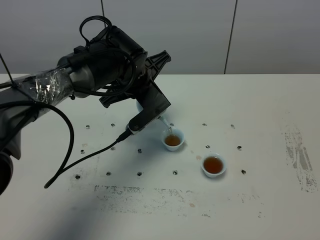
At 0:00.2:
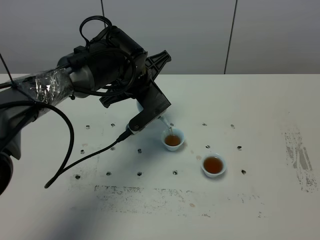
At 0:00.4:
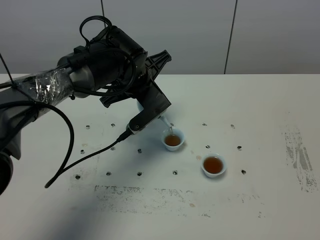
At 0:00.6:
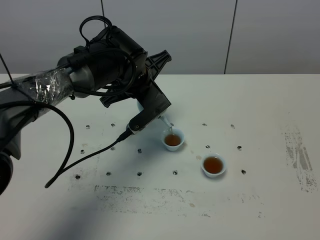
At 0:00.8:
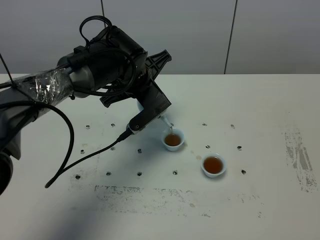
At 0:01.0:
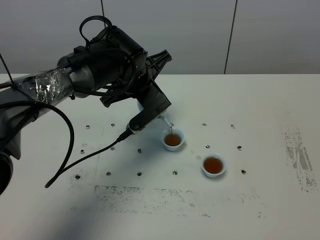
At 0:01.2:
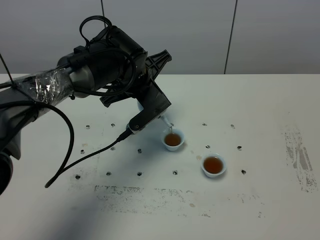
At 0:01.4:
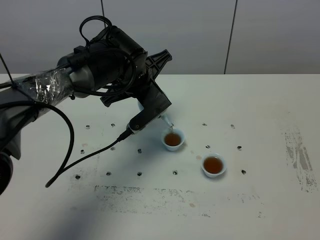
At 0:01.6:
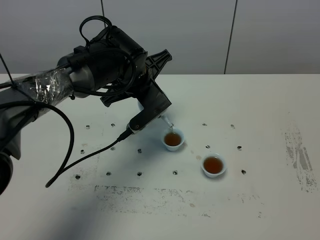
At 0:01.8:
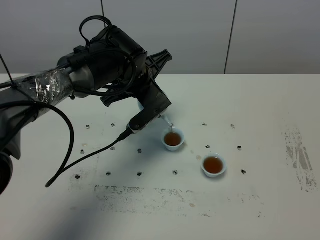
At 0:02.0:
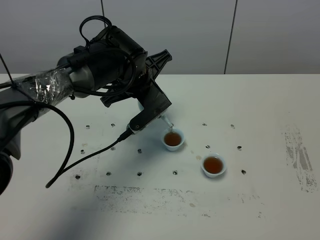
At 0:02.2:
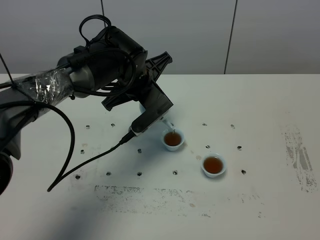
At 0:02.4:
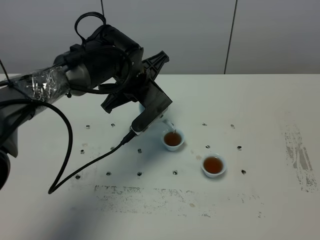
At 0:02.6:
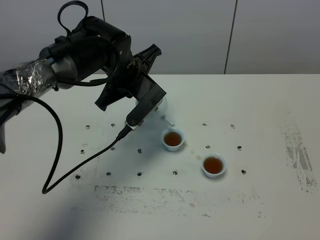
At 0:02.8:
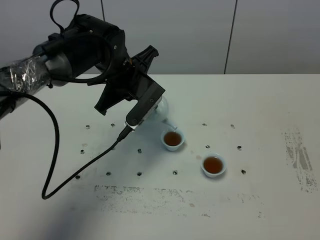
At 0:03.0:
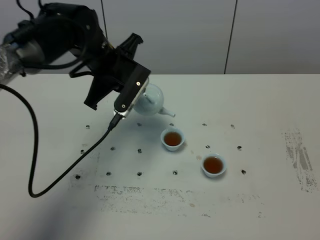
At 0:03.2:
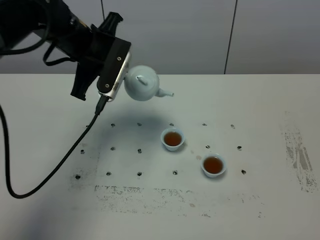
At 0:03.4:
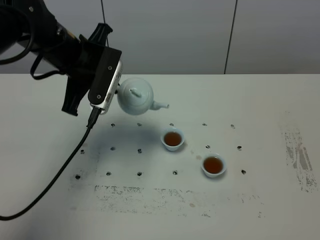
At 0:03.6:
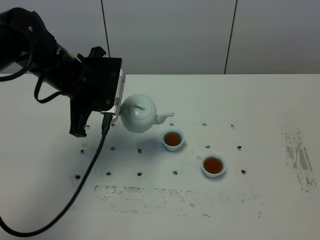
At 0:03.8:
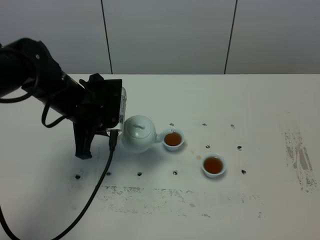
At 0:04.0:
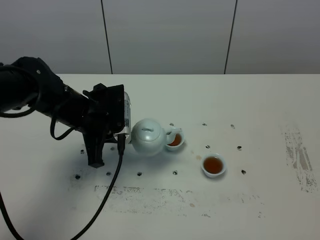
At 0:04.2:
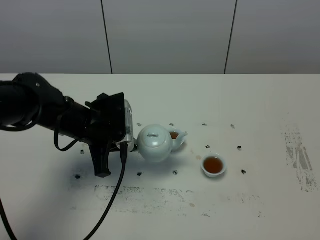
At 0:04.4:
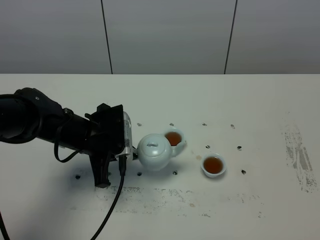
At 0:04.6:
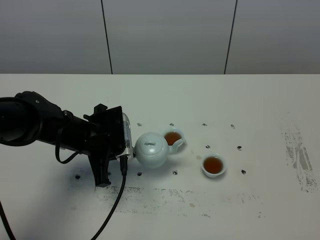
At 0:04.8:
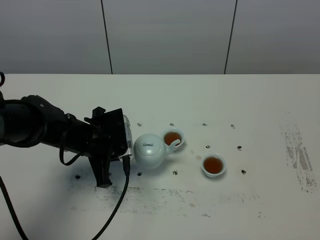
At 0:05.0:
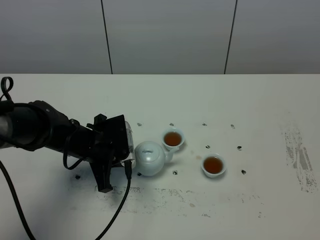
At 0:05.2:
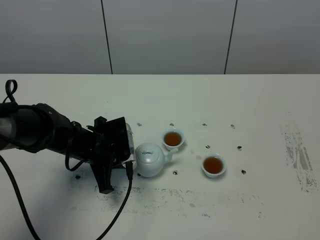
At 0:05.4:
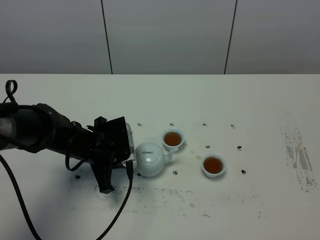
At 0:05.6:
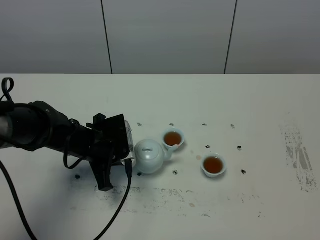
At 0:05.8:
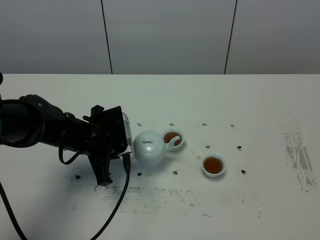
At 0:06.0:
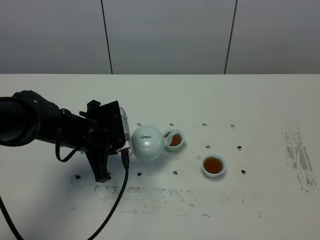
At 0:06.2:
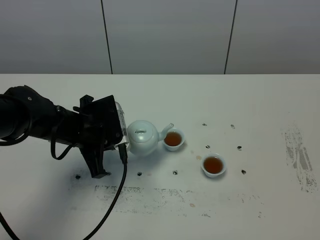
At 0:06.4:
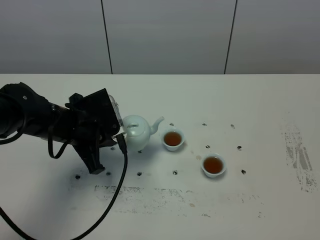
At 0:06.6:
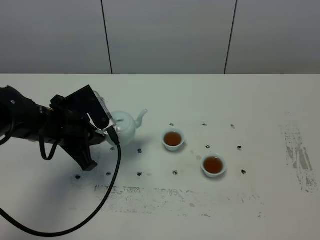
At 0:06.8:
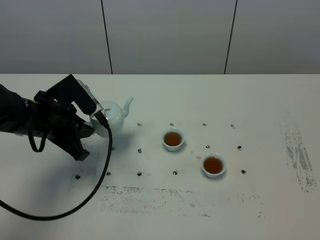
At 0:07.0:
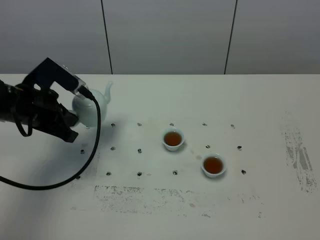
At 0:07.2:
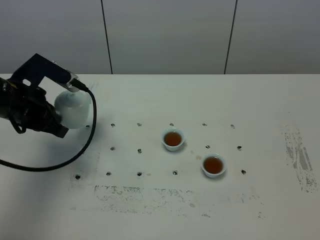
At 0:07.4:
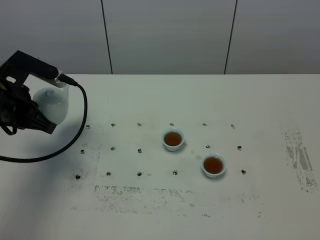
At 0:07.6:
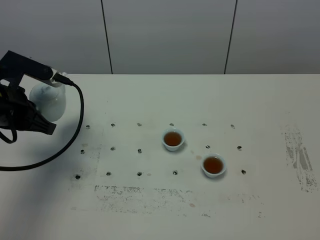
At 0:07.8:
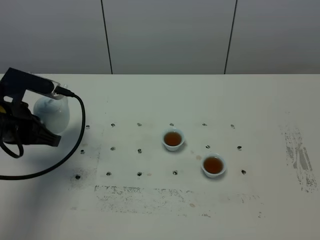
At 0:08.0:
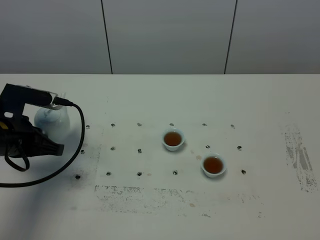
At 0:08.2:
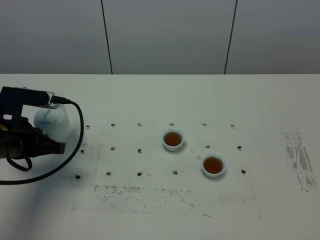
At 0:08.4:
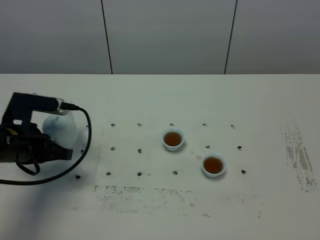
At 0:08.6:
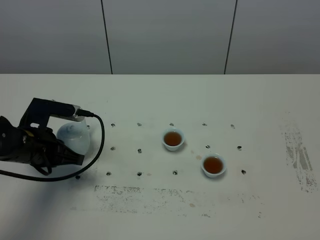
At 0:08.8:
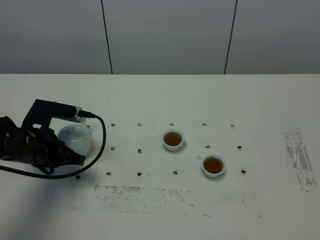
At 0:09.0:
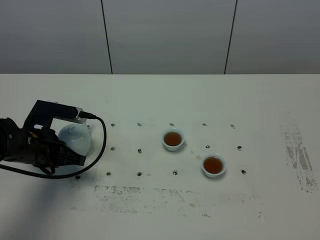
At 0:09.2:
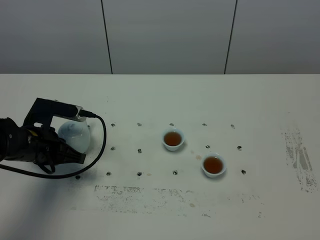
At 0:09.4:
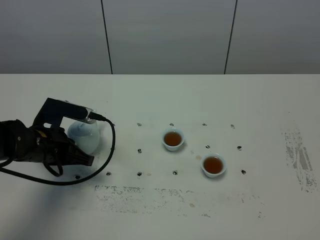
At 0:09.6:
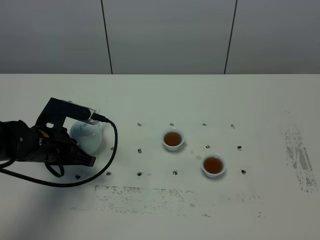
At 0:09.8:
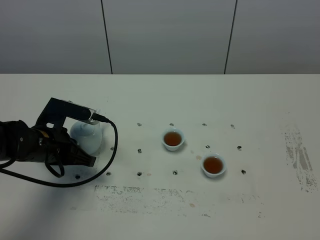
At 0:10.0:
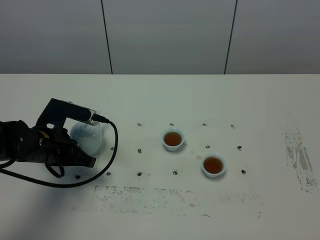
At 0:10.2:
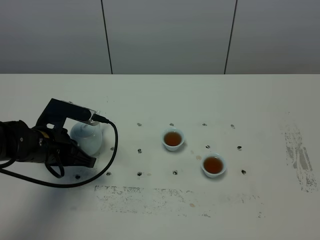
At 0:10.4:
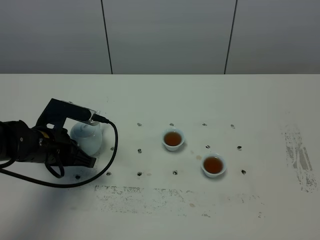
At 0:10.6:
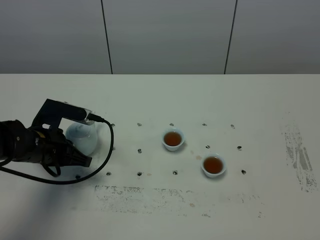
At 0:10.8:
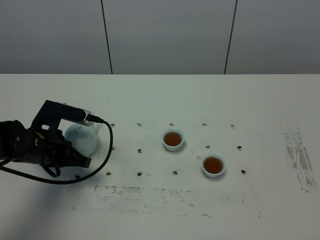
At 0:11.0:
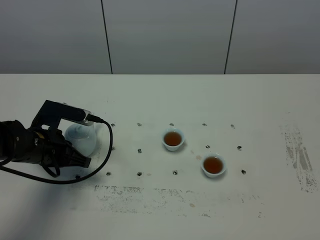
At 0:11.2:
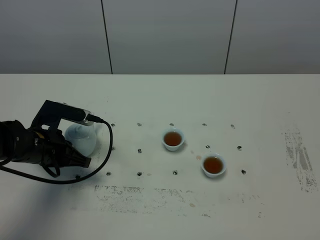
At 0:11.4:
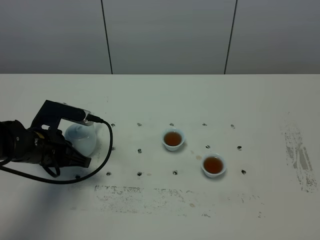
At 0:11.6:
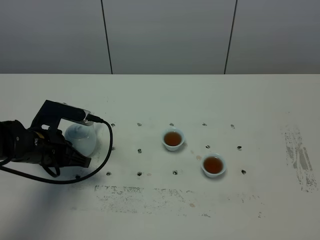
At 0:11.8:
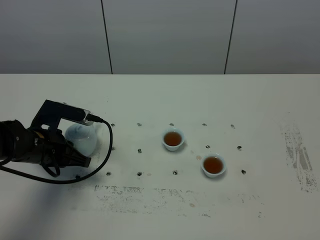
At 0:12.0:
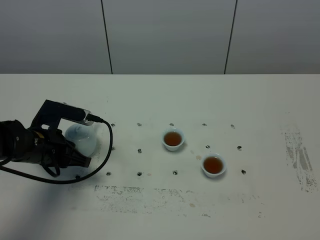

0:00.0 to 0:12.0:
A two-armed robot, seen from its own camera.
Task of the whole recording: grasp the blue porcelain teapot and pour the tea into the two blue porcelain teacups one by one, put the blue porcelain teapot back in its original place.
Step, 0:00.0 to 0:02.8: Pour tea into the teacup with the left gripper.
0:00.0 to 0:01.6: Both grippers stay put.
0:01.6 to 0:03.0: The left gripper goes about 5 cm to the left.
0:03.0 to 0:04.4: The left gripper travels downward and backward by approximately 15 cm.
0:04.4 to 0:06.0: The grippers stay close to where they were, moving slightly.
0:06.0 to 0:07.6: The left gripper moves to the left and upward, approximately 10 cm.
0:07.6 to 0:09.0: The left gripper travels downward by about 10 cm.
0:09.0 to 0:10.4: There are only small adjustments of the grippers.
0:10.4 to 0:12.0: The left gripper opens up.

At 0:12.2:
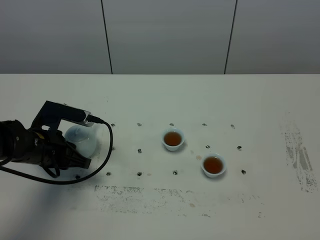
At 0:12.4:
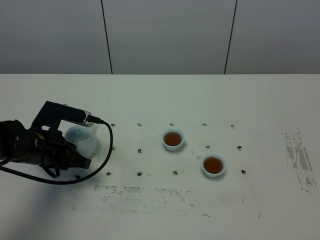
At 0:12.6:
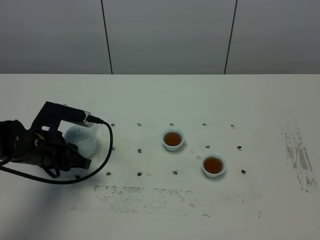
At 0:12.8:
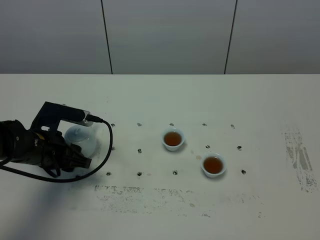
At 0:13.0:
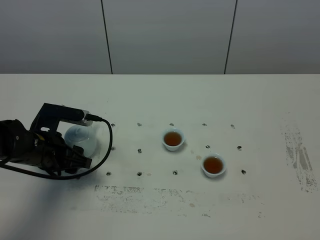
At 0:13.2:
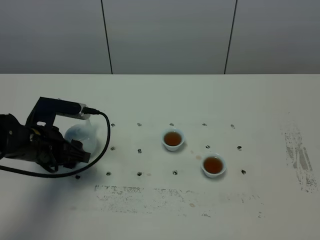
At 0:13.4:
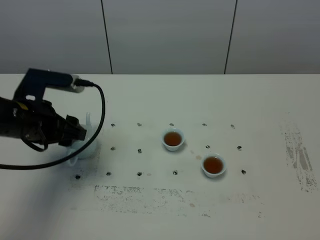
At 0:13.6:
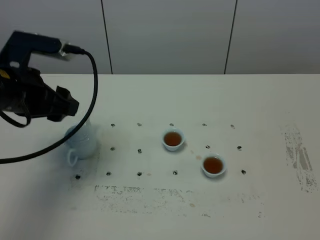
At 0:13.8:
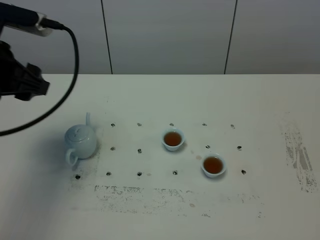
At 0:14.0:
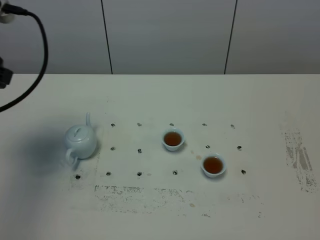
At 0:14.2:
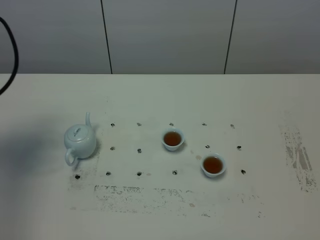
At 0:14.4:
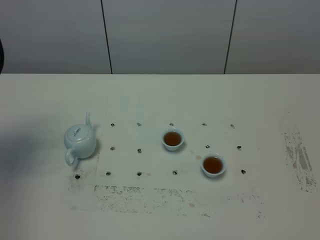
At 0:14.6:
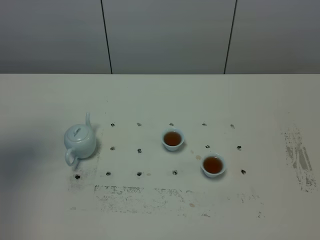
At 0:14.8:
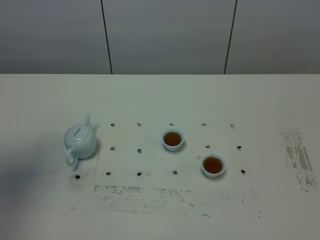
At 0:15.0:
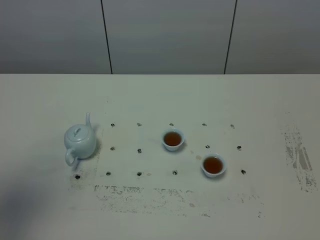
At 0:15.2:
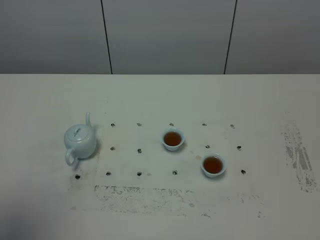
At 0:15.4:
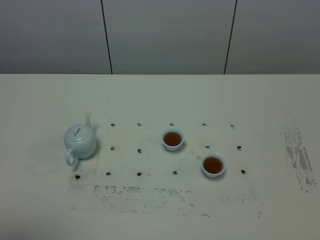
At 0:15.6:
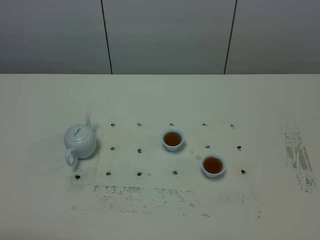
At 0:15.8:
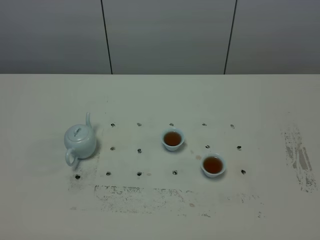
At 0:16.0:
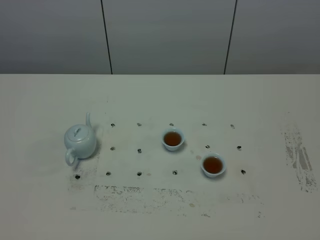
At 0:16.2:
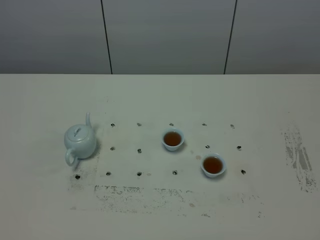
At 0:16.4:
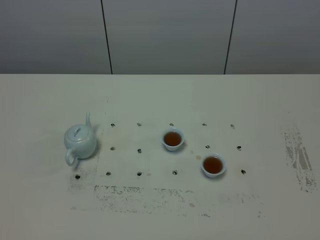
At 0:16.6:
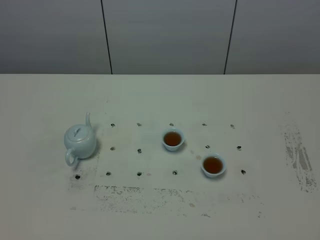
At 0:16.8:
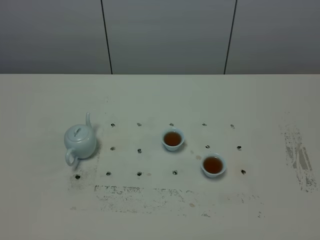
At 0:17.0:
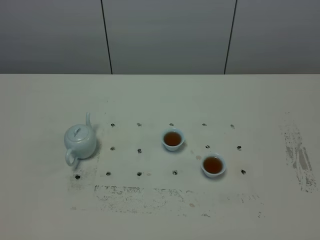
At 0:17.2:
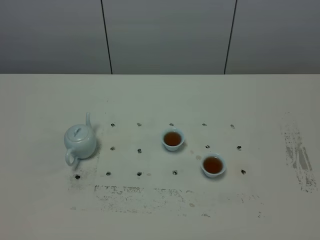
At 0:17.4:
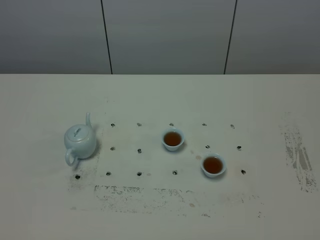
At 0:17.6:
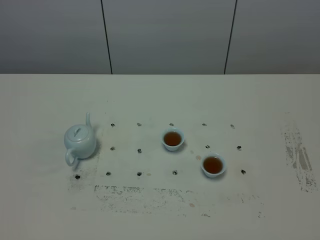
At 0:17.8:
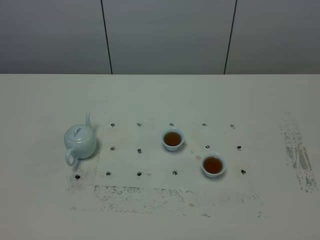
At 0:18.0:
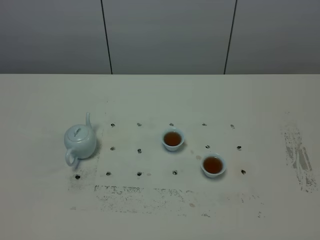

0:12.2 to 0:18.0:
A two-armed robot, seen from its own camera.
Task of the whole recording: grasp the blue porcelain teapot and pour the tea into the two blue porcelain teacups one by one, put the blue porcelain teapot back in its original place.
0:12.2 to 0:13.6: The left gripper moves upward, about 15 cm, and opens up.
0:13.6 to 0:15.0: The left gripper travels backward, upward and to the left by some 25 cm.
0:15.0 to 0:16.6: The left gripper heads downward and backward, covering some 25 cm.
0:16.6 to 0:18.0: Both grippers stay about where they are.
